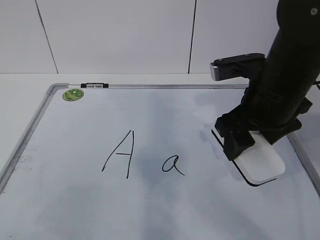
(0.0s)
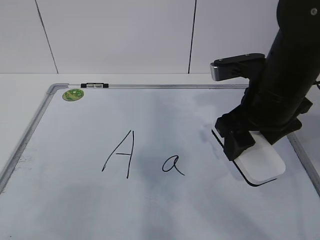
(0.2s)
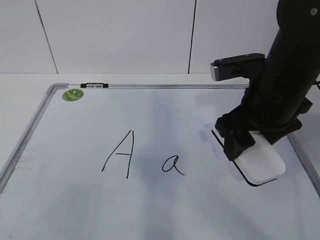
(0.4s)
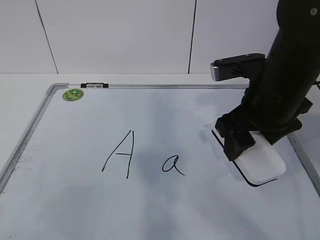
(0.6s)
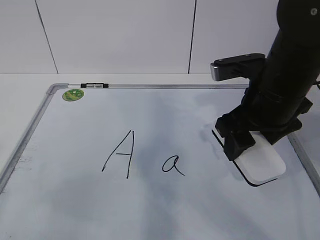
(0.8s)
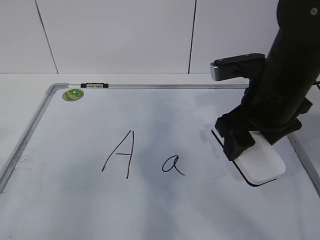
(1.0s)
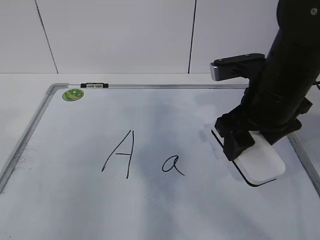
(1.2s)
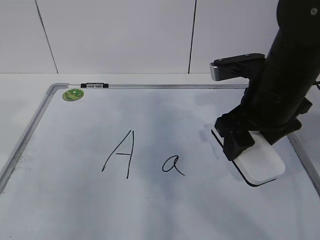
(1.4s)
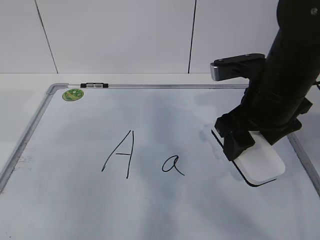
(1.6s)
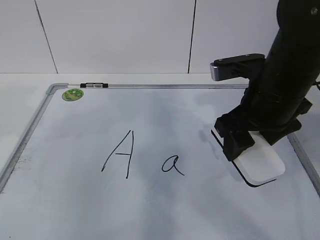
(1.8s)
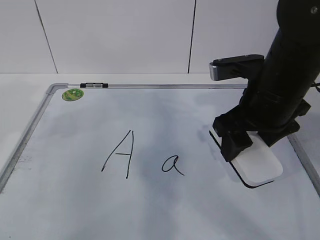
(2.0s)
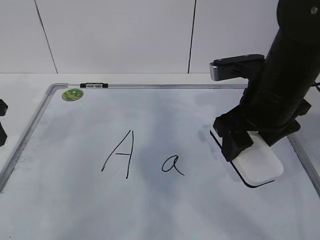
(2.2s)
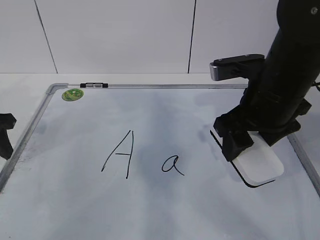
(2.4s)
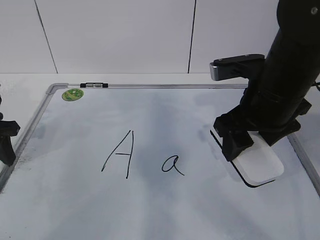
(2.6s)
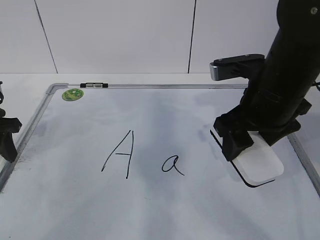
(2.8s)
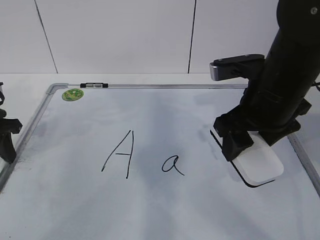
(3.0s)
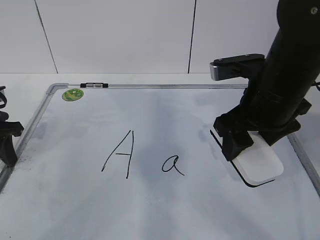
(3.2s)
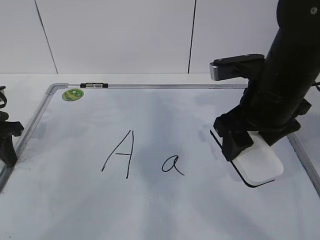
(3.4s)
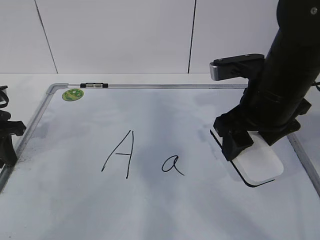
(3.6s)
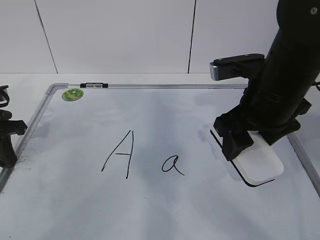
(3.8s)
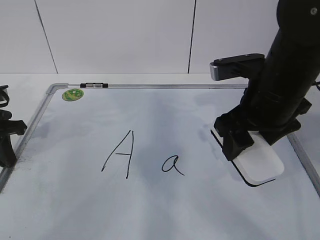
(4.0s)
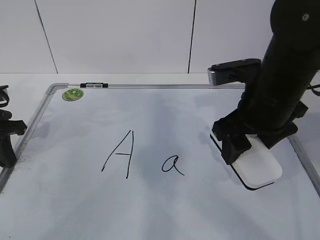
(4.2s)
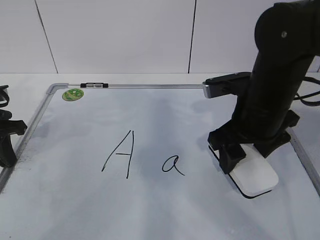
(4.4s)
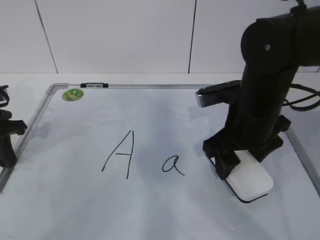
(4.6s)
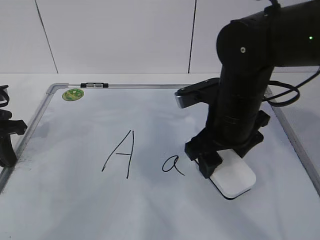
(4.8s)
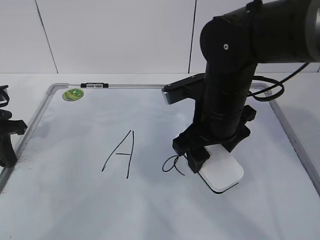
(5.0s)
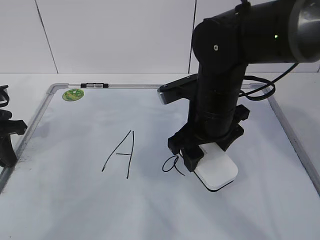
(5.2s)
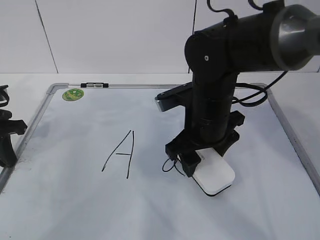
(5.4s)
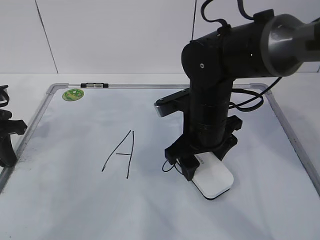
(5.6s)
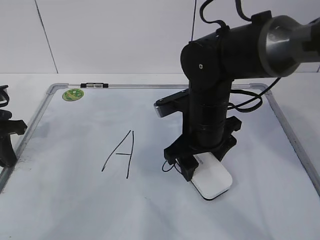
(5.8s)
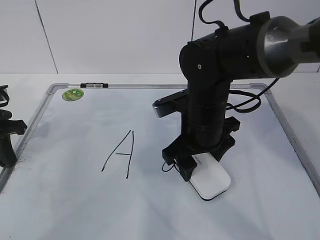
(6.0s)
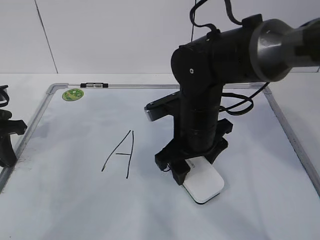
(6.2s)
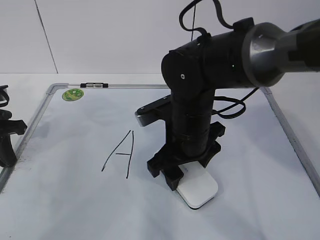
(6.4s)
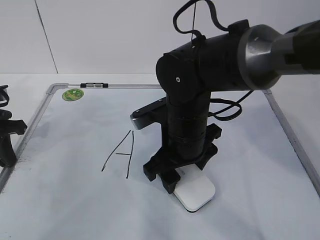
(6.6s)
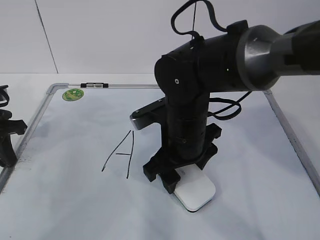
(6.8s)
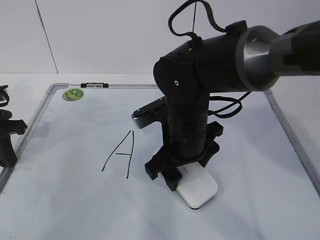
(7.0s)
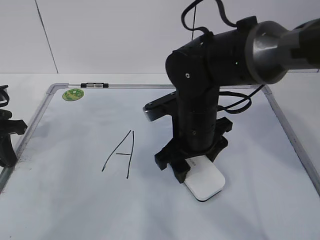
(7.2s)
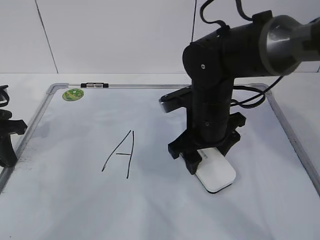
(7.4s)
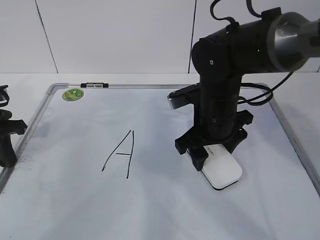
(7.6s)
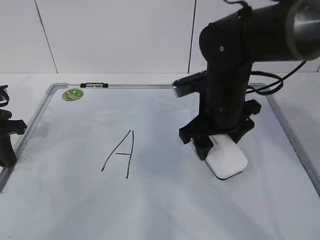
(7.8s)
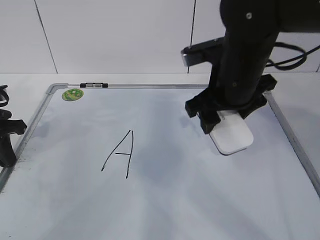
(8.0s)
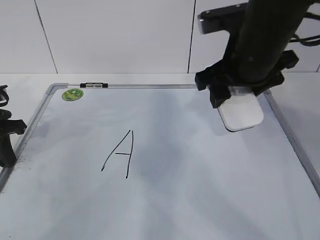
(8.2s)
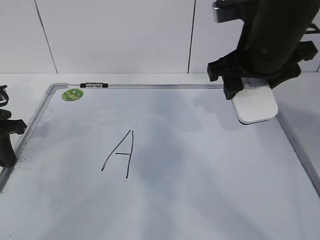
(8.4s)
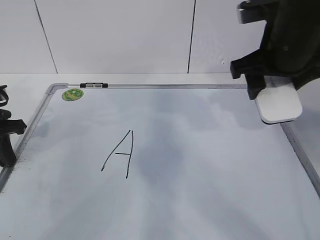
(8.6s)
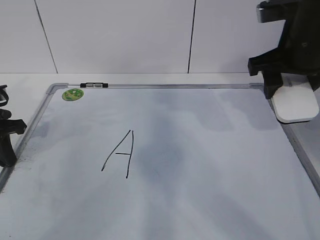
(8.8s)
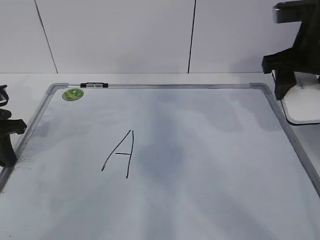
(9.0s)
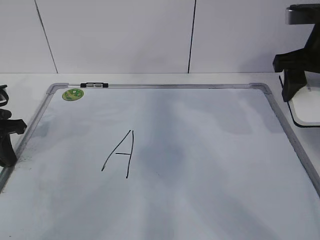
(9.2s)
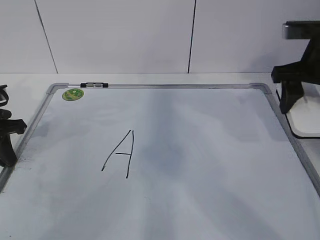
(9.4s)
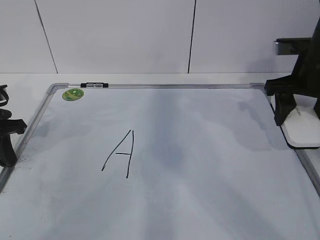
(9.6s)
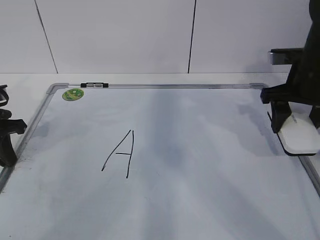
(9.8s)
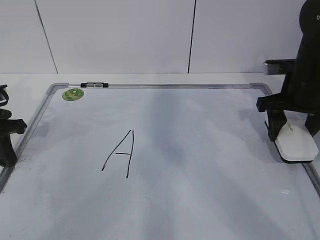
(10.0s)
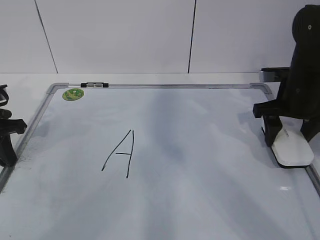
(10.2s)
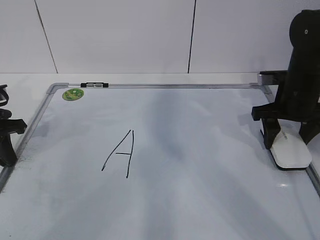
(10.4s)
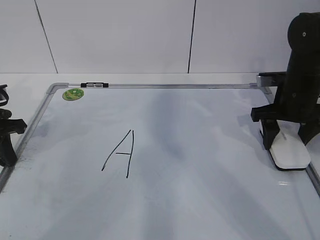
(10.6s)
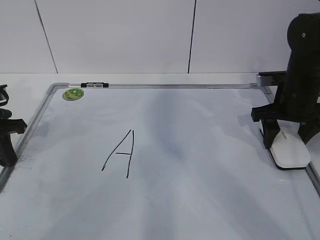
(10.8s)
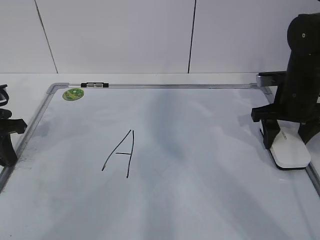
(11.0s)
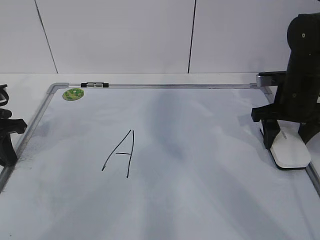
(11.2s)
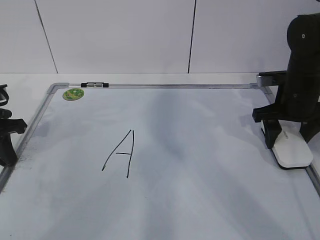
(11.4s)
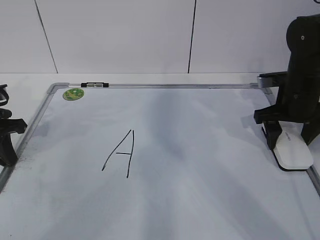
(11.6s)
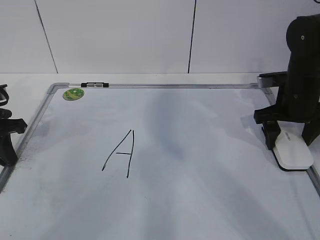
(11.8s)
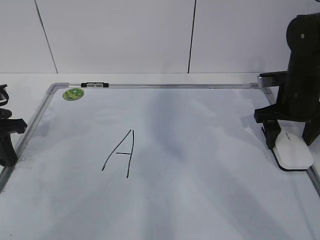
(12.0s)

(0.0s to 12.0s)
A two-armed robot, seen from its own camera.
Task of the whole recording: pick up the eraser on the blackboard and erase the letter "a".
Step, 2.0s - 4.8s: Erase the letter a with your right hand.
Step, 5.0s - 8.0s: Put down the eraser with your right hand.
1.6s - 3.0s: The left gripper is displaced downward and forward by about 15 cm.
3.0s - 4.4s: The left gripper closes.
4.4s - 6.0s: The right gripper shifts about 5 cm to the left.
6.0s - 7.6s: The grippers stay close to where they were, moving slightly.
7.6s - 9.0s: The right gripper goes roughly 20 cm upward and to the right.
9.0s - 10.4s: The right gripper is displaced downward by some 10 cm.
10.4s - 12.0s: The right gripper opens.

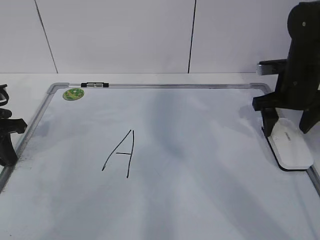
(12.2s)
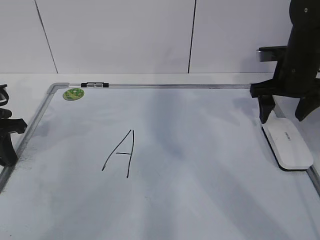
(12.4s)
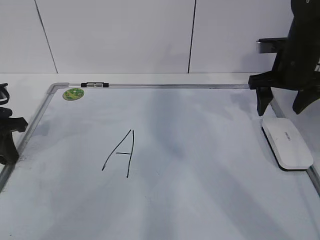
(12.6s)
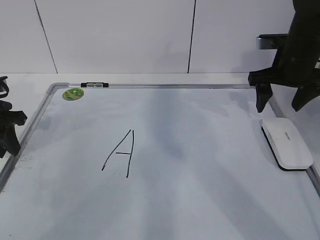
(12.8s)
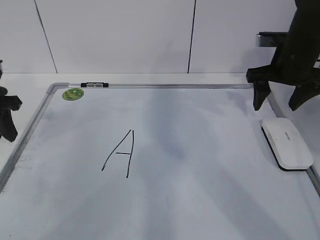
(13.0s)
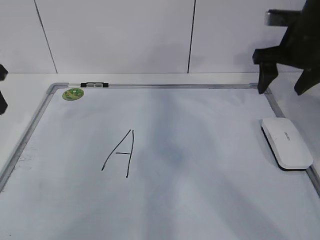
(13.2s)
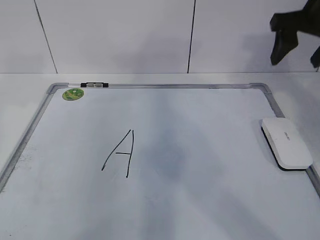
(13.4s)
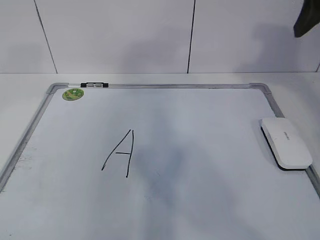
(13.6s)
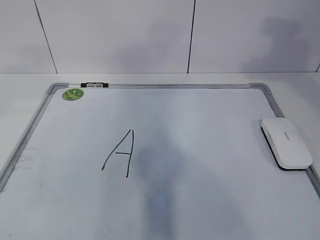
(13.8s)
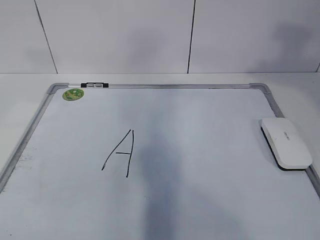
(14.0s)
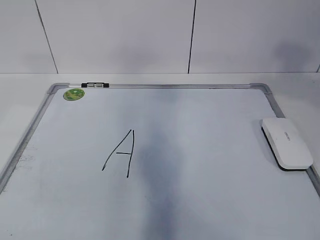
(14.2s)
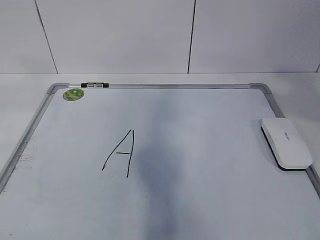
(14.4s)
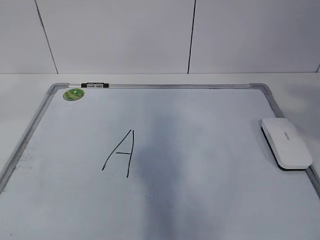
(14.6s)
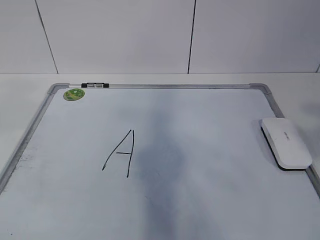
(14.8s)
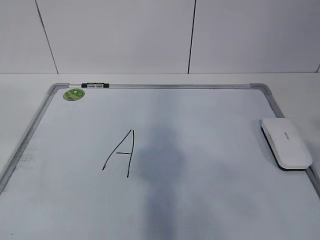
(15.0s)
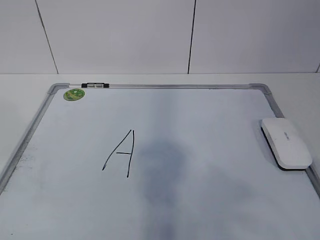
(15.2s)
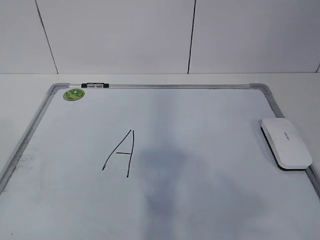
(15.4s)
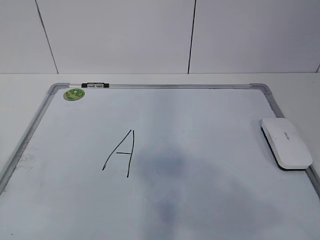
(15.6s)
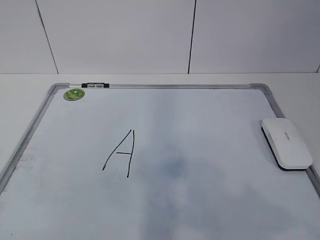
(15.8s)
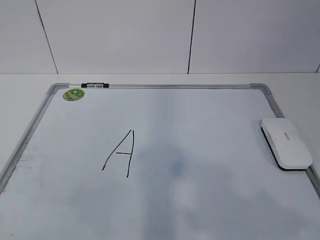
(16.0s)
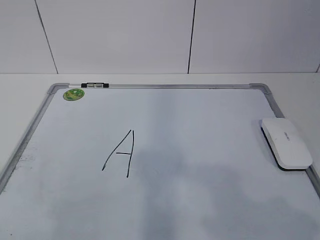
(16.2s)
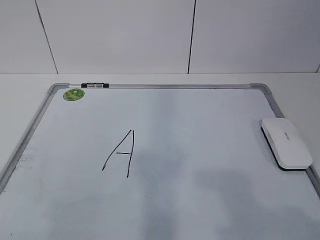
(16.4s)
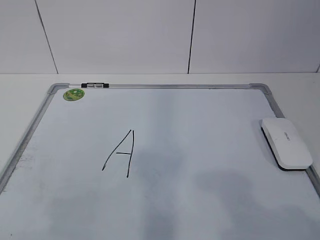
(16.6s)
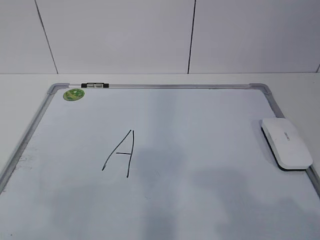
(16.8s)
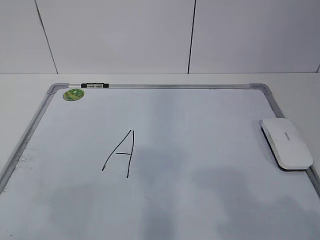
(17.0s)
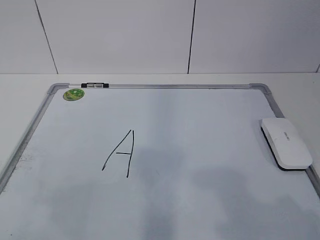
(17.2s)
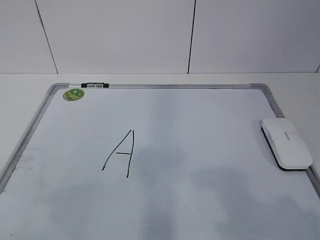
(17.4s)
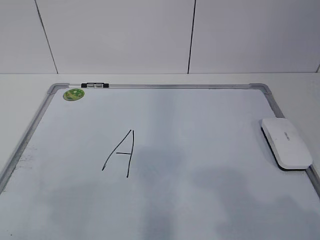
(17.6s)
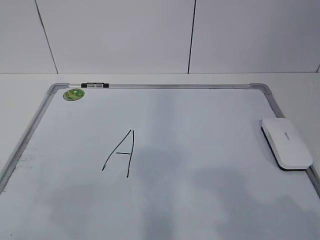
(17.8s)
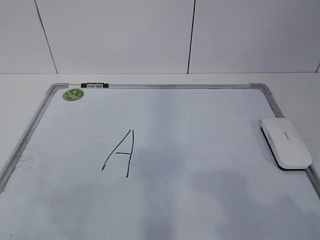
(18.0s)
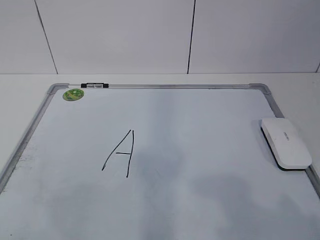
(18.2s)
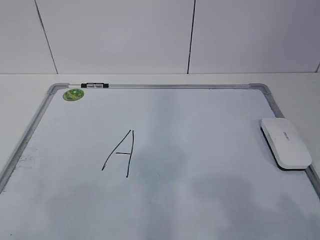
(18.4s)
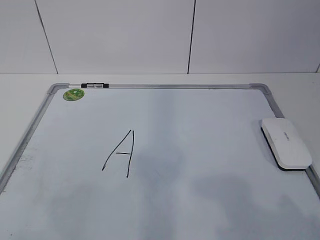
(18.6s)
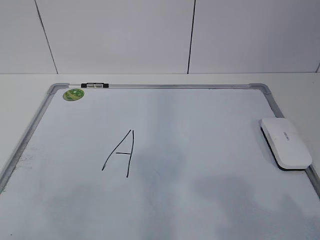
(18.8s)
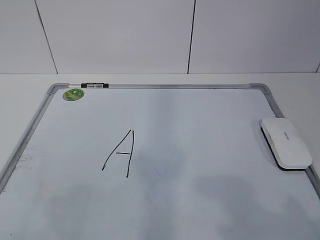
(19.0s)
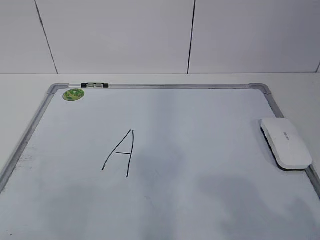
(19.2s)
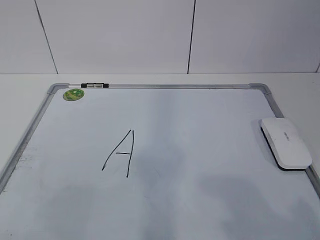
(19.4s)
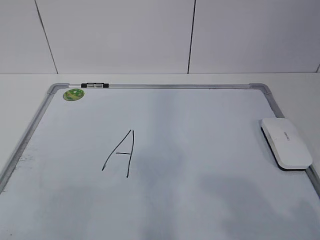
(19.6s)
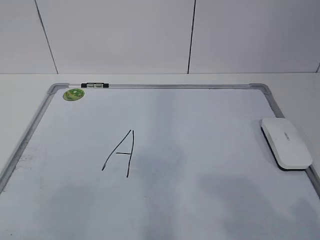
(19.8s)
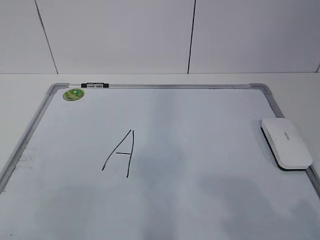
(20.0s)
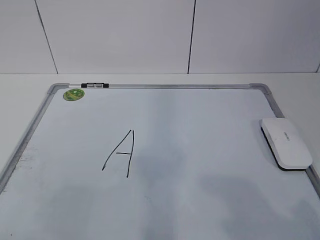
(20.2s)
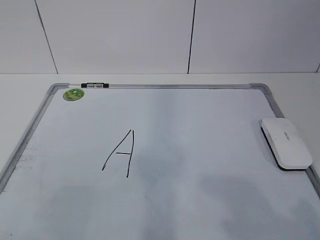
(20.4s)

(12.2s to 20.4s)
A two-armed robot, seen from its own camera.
Task of the whole recording: pick up the eraser on the blackboard and erase the letter "a".
12.2s - 13.8s: Both grippers move upward and backward, about 25 cm. The left gripper opens up. The right gripper closes up.
